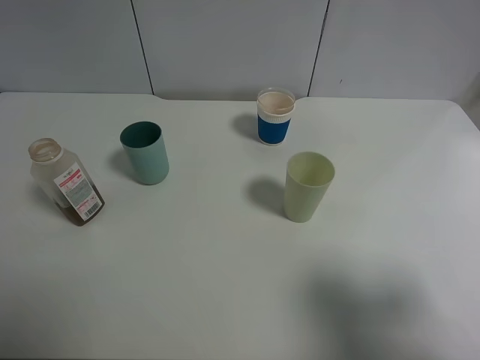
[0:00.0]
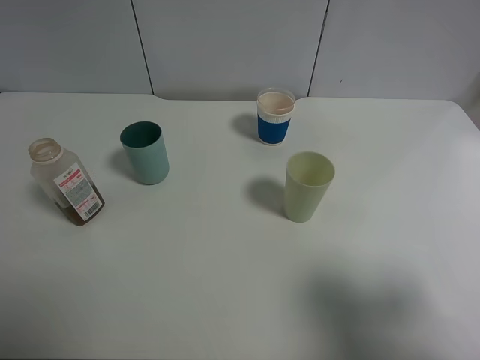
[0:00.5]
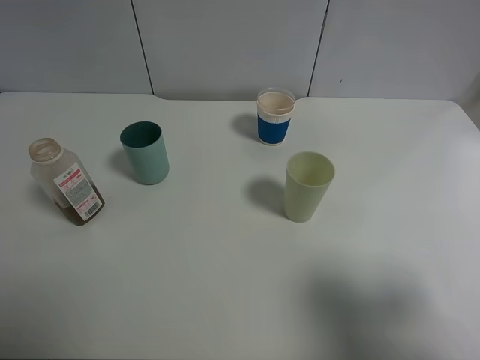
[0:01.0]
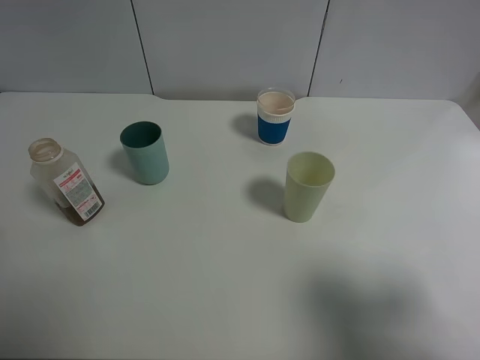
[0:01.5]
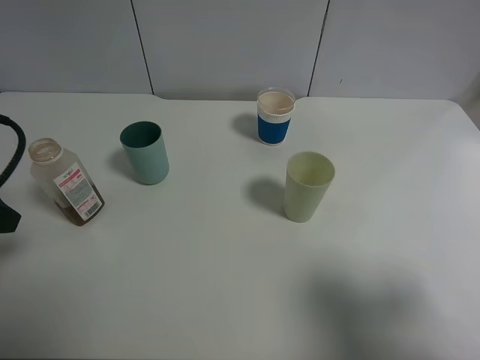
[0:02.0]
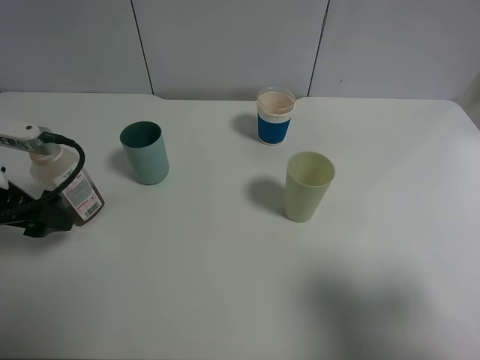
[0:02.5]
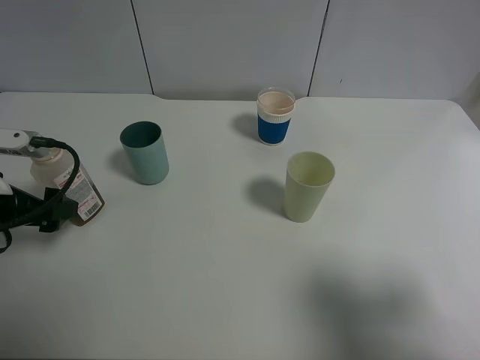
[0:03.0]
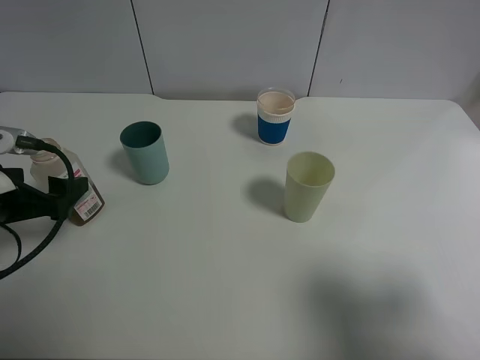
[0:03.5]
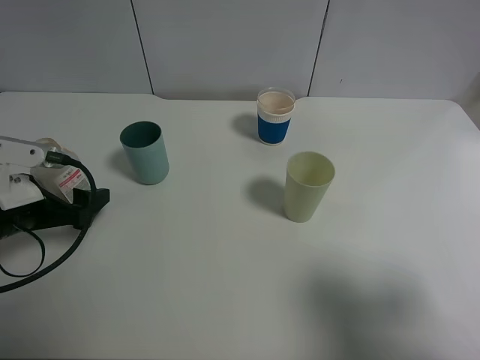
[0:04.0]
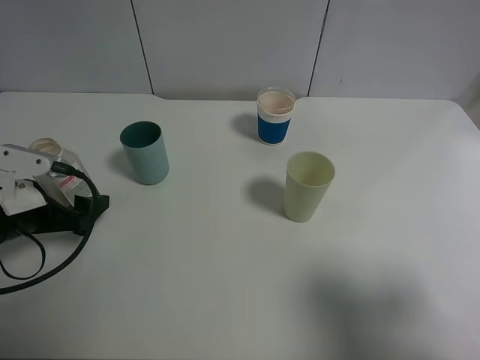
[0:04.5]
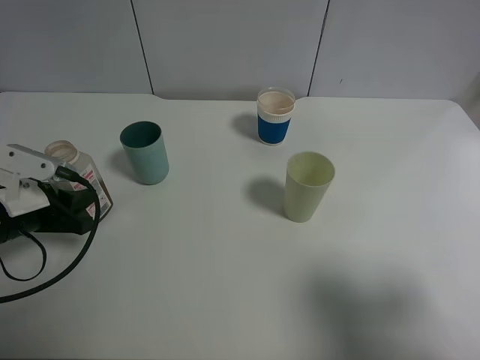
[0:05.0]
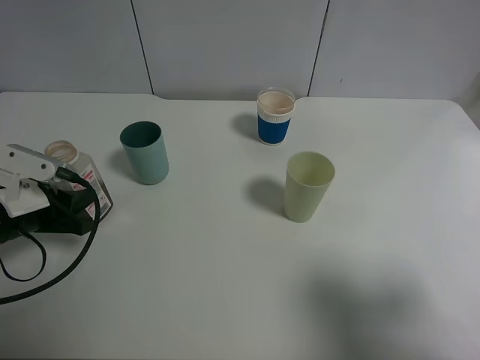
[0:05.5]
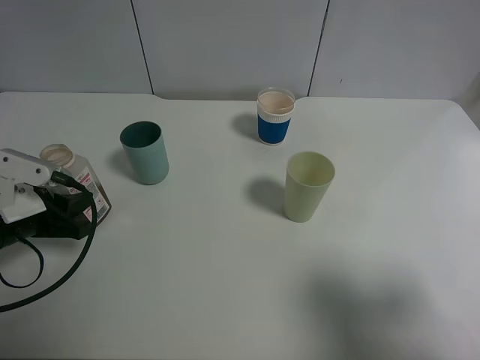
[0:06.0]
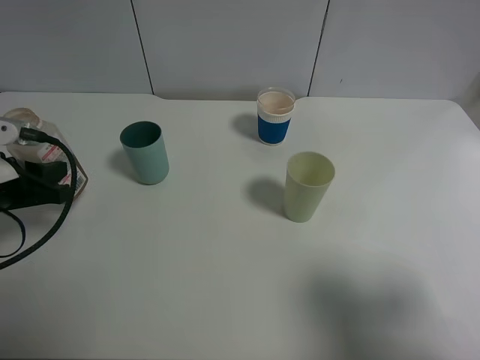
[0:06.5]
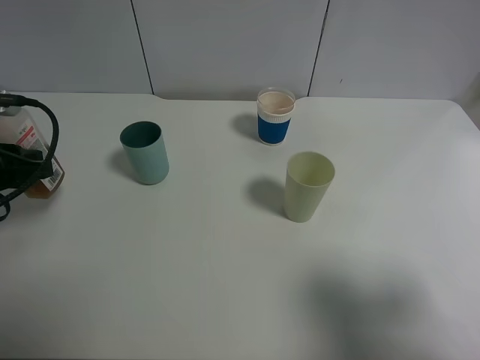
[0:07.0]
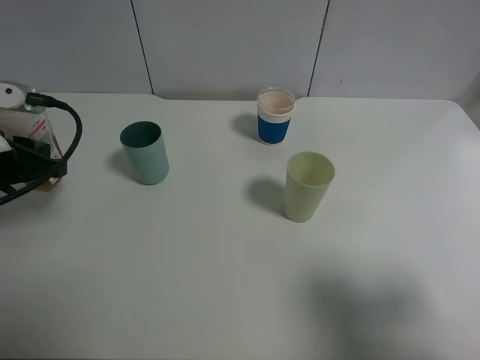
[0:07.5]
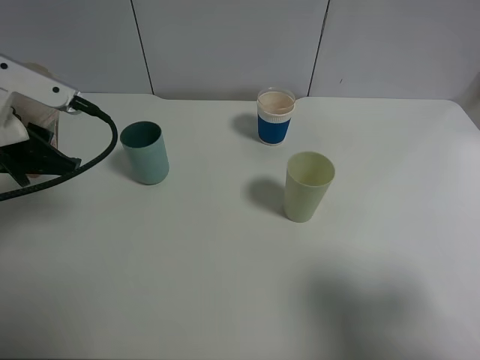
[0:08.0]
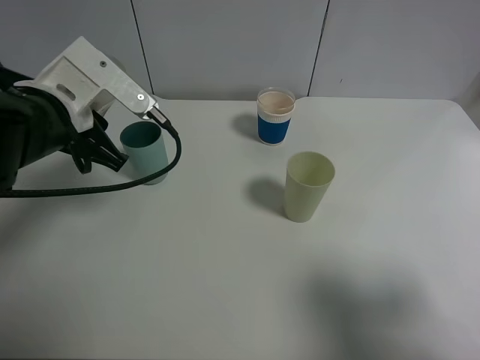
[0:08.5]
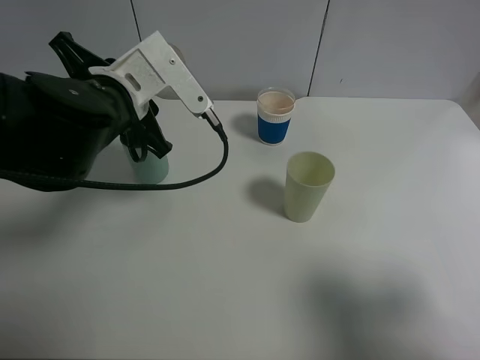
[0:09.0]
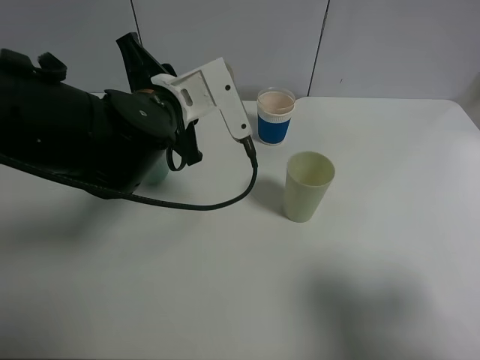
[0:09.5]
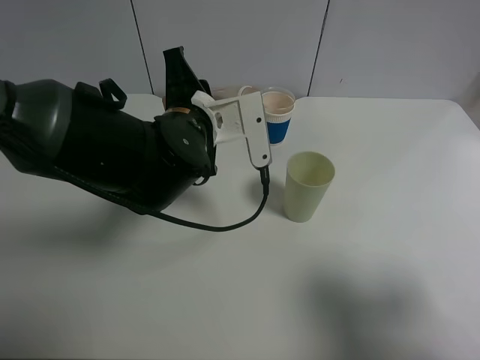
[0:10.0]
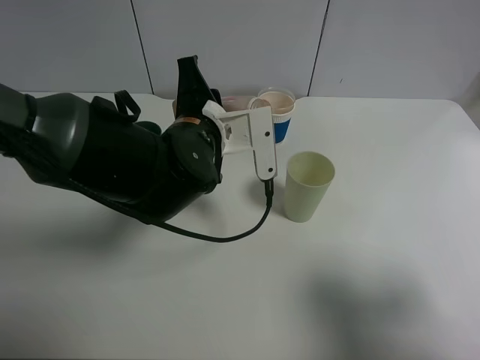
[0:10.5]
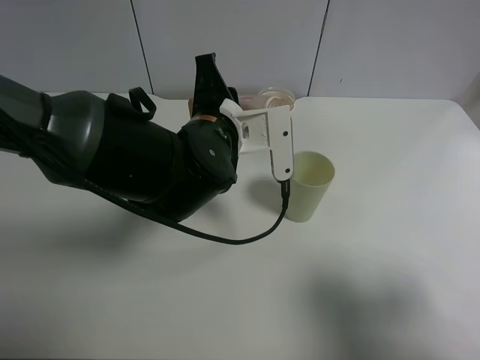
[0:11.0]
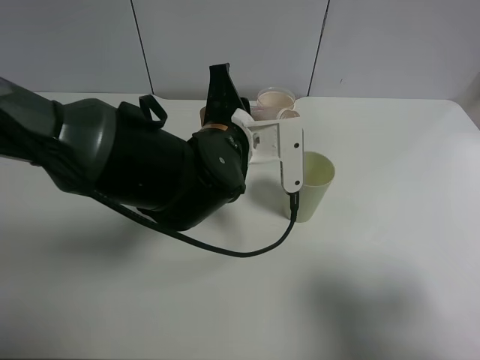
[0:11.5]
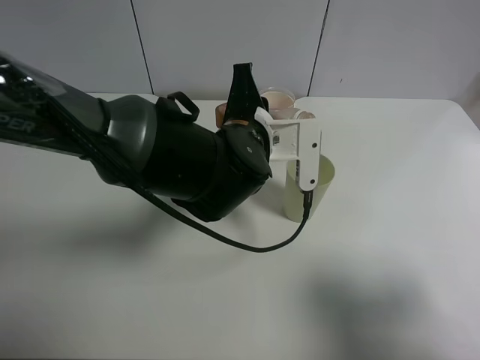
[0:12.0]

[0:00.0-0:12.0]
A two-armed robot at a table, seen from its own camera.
Task of the whole recording: use a clamp to hold the bottle of the drink, pour the beverage into a random cup, then clamp the cup containing the drink and pour the drink into another random cup.
Step, 0:00.0 to 0:07.0: Pick up the drink bottle with left gripper.
0:00.0 to 0:02.0: The left gripper heads forward, covering about 15 cm.
0:02.0 to 0:04.0: The left gripper heads downward, covering about 10 cm.
0:04.0 to 0:06.0: The left gripper closes its fingers.
0:06.0 to 0:08.0: The left gripper travels upward by some 10 cm.
0:08.0 to 0:10.0: The left gripper shifts about 20 cm to the right.
0:10.0 to 0:12.0: The left gripper is displaced to the right by approximately 5 cm.

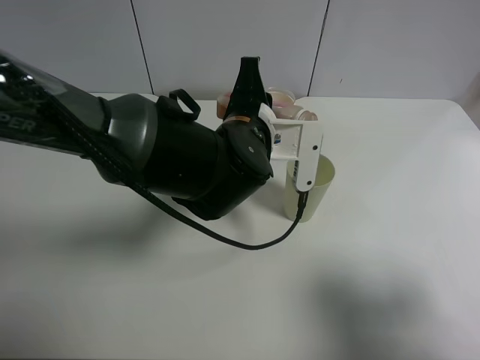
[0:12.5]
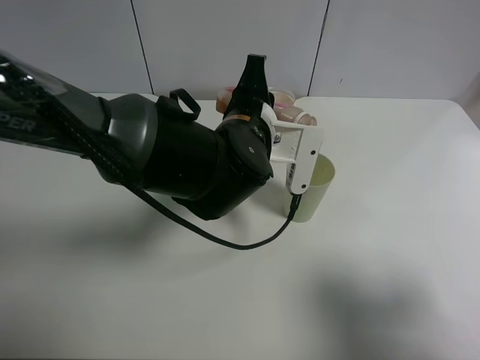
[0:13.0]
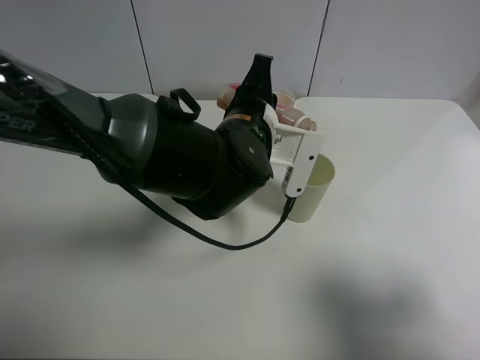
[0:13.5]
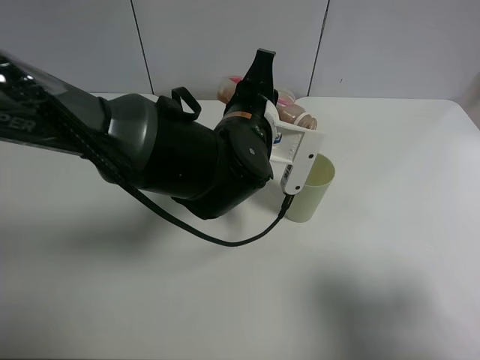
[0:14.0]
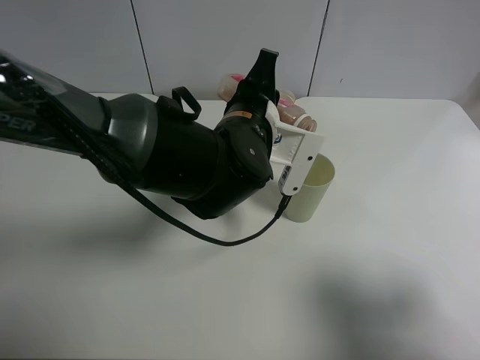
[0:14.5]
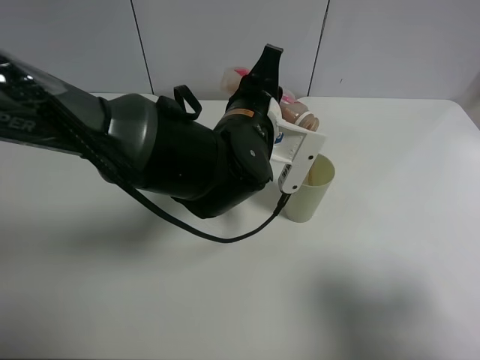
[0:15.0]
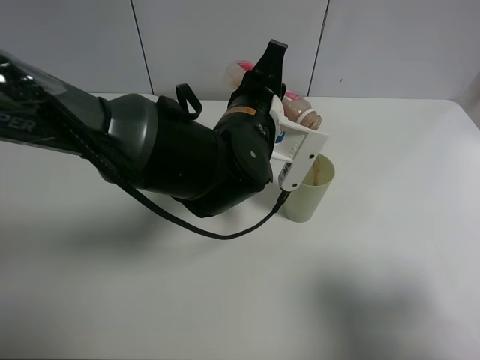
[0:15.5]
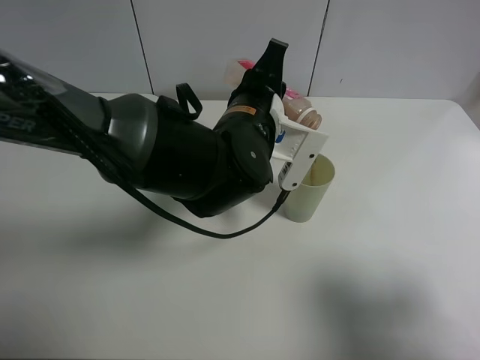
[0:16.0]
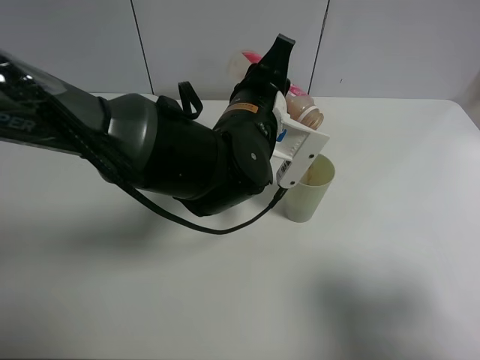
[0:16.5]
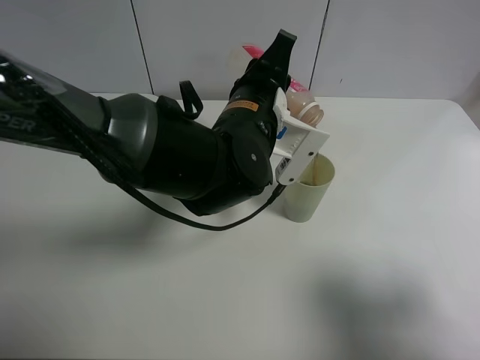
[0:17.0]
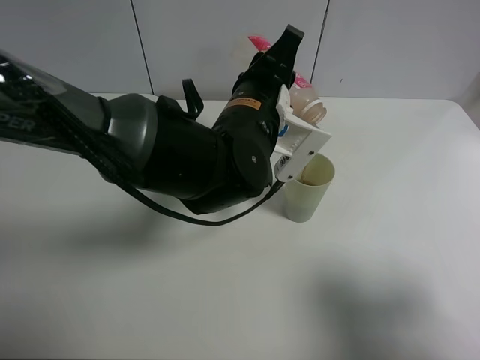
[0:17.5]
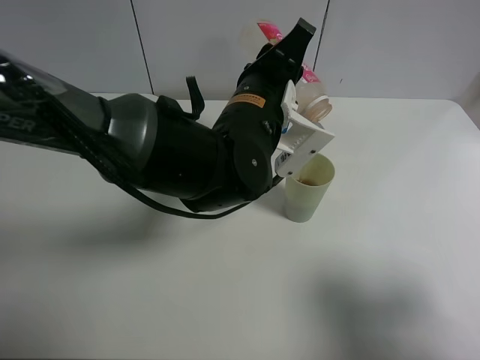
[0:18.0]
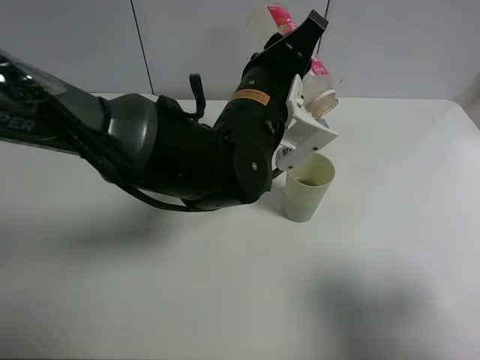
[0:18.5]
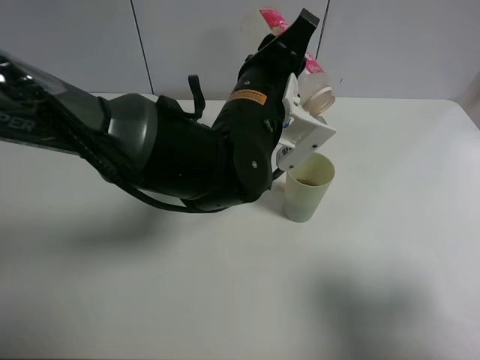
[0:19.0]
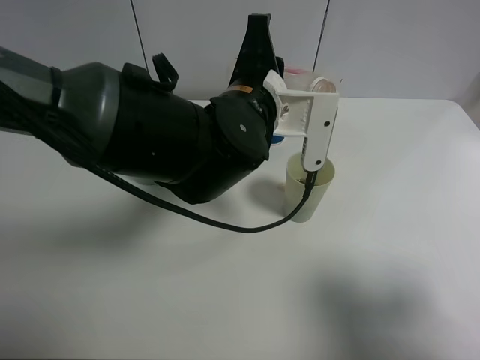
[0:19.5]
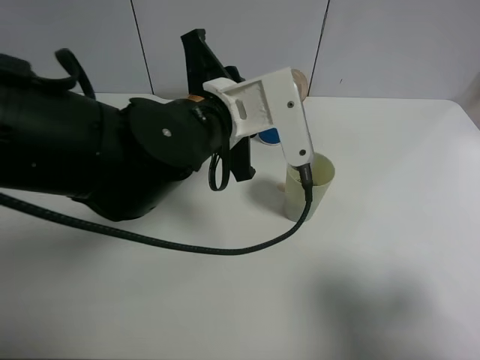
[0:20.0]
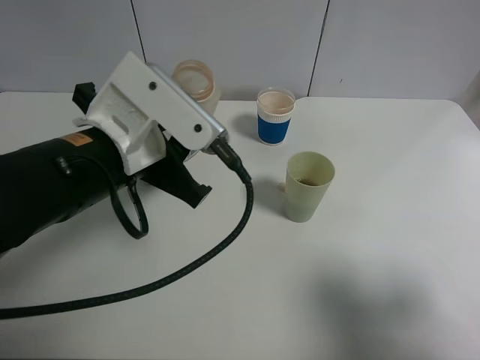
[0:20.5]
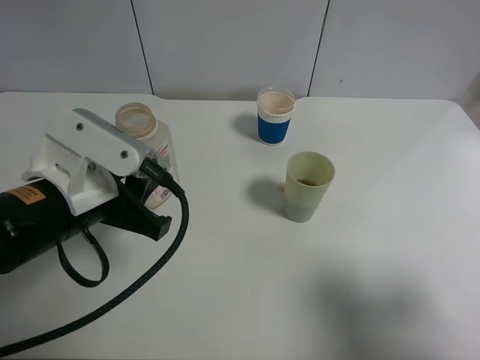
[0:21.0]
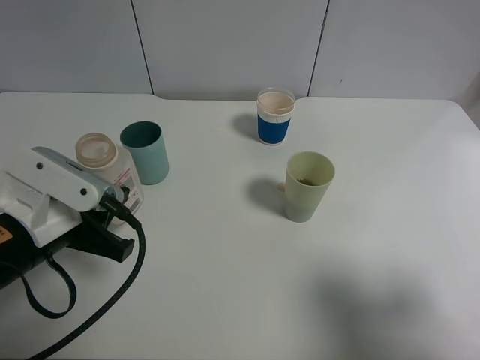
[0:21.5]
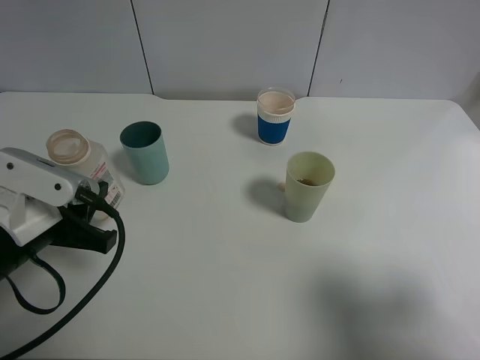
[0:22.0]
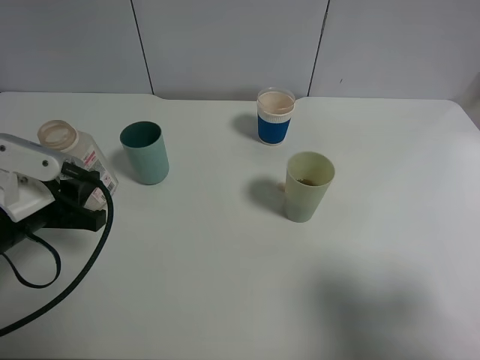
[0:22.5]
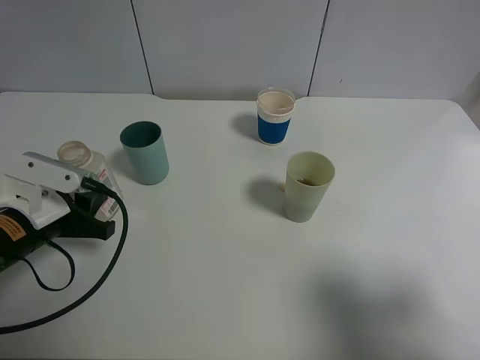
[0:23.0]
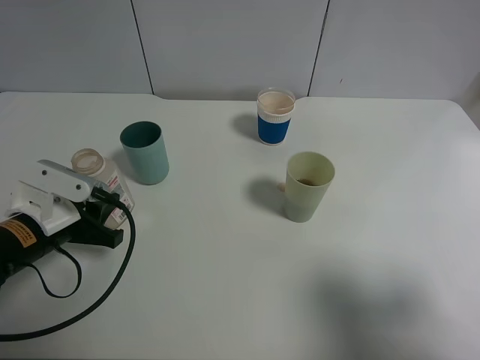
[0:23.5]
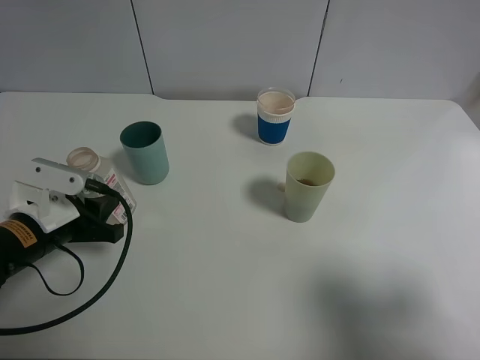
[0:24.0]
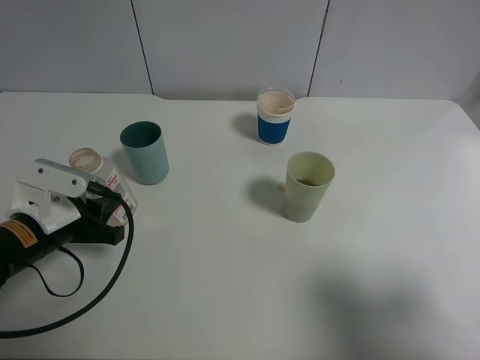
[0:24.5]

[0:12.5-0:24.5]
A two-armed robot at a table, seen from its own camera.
Task of the whole recording: use a clamp to hold the bottle of the drink, pour the beverage into a random cup, then clamp the cup containing the drink and pour the drink into another random cup.
Step, 0:12.5 to 0:19.0: Pour the drink into the green plastic cup with left gripper.
0:12.5 to 0:14.5: The grippers stay close to where they were, moving slightly.
0:14.5 to 0:16.5: The grippers stay close to where they were, moving slightly.
0:16.5 to 0:18.5: The grippers stay close to where they were, moving slightly.
0:18.5 to 0:20.5: The left gripper heads to the left and backward, covering roughly 15 cm.
0:20.5 to 0:22.5: The left gripper goes some 15 cm to the left and downward.
0:22.5 to 0:24.5: The left gripper travels downward by approximately 5 cm.

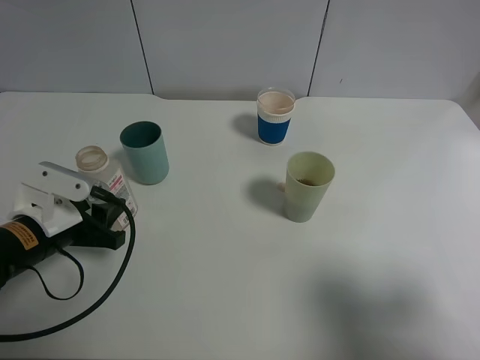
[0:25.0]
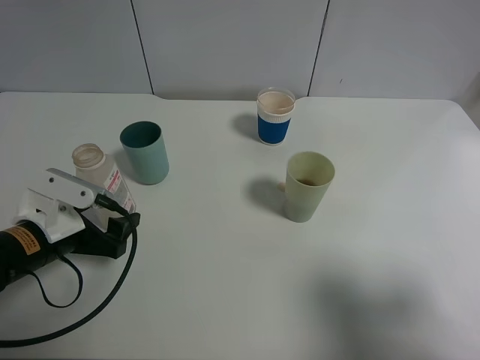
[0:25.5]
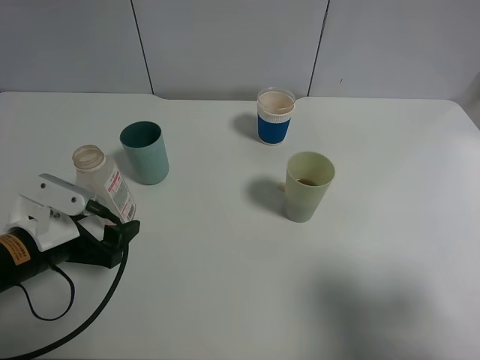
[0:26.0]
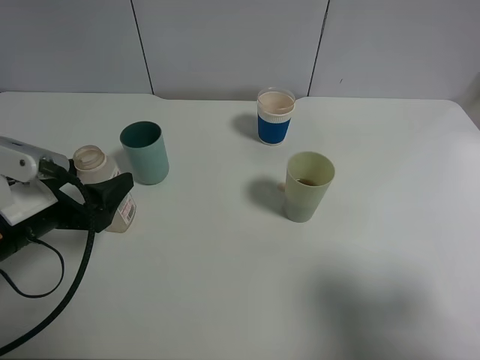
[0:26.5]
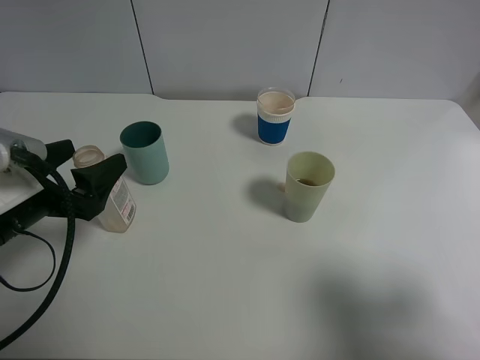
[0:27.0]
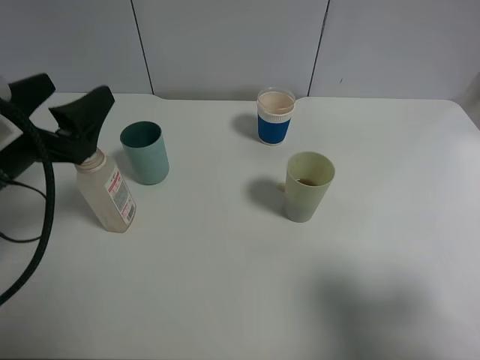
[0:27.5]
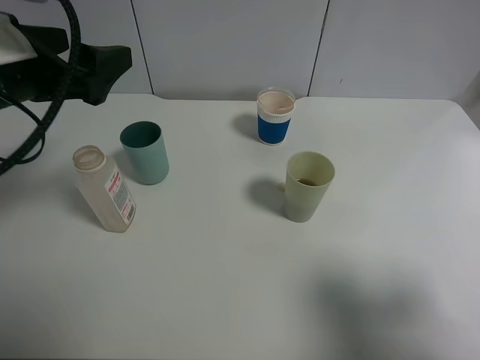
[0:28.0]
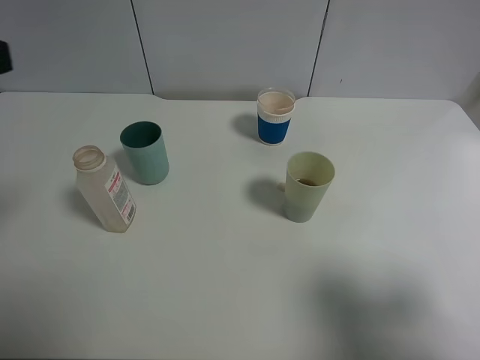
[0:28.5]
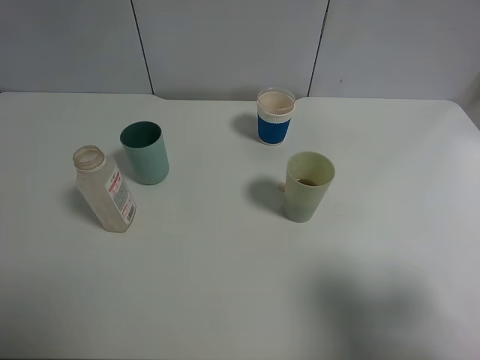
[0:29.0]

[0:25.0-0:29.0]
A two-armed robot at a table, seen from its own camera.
Task of the whole recording: use a clamp to hold the bottle of the drink, pour the beverage into a random cup, then clamp the cup containing the drink and pour the drink into another random cup.
0:25.0 to 0:27.0: The left gripper heads upward, covering approximately 5 cm, and opens its fingers.
0:27.0 to 0:29.0: The left gripper moves upward and backward, some 20 cm.
